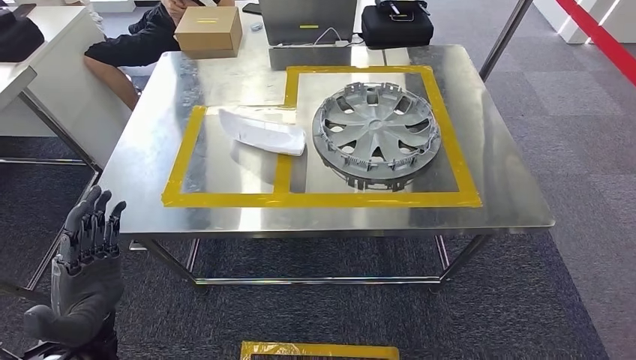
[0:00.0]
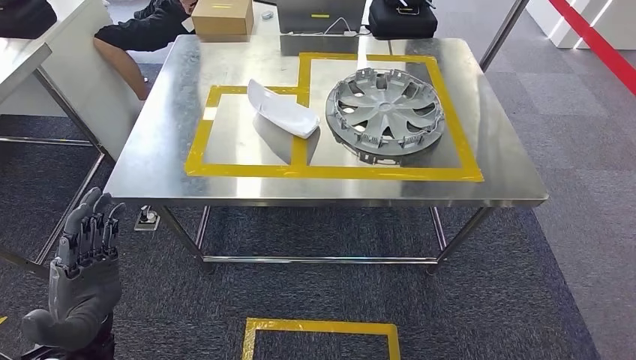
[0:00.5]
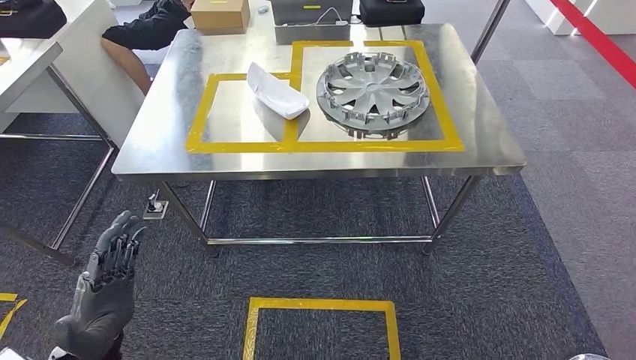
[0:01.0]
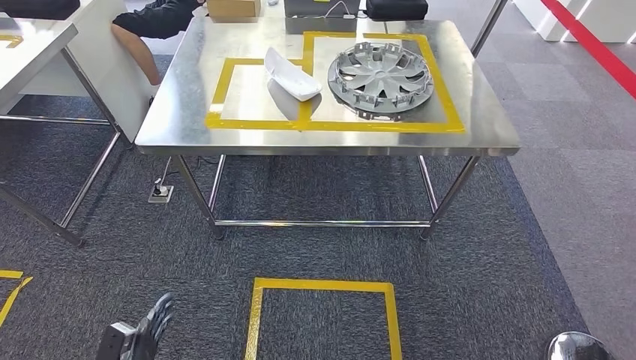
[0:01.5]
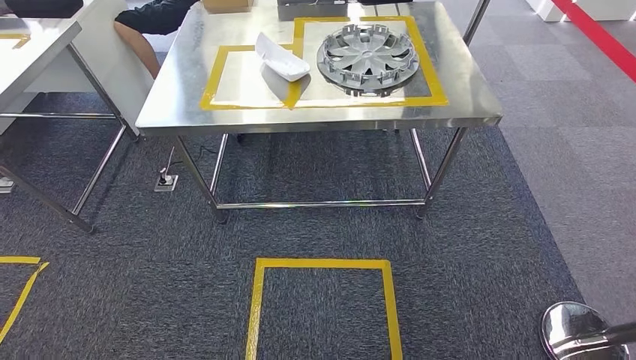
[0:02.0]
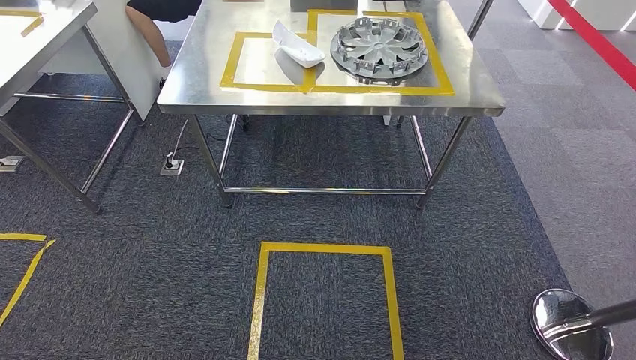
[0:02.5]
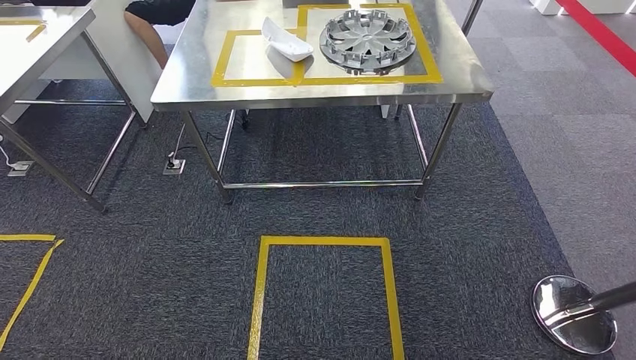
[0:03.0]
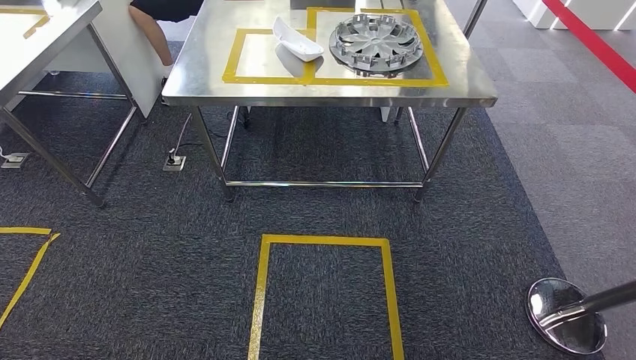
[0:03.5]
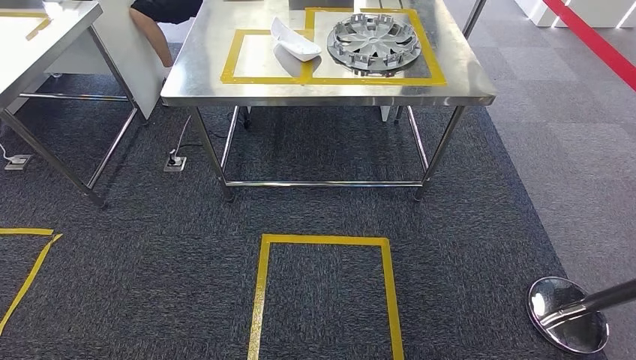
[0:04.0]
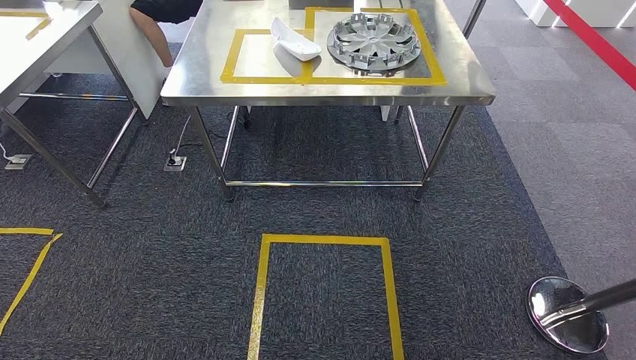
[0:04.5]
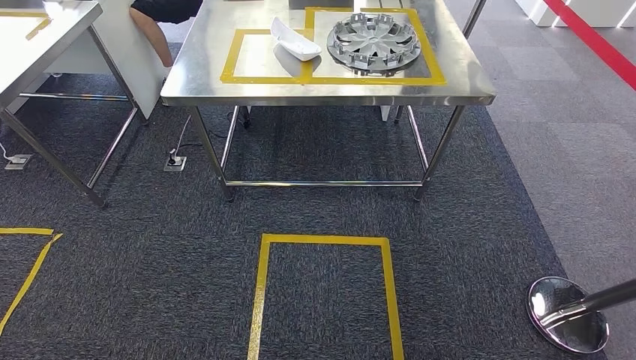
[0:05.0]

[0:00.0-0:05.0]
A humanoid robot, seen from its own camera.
Step, 0:00.0 to 0:05.0: Return to the initial position at the workbench.
0:02.5 to 0:05.0: The right hand ends up roughly 5 cm from where it was.
